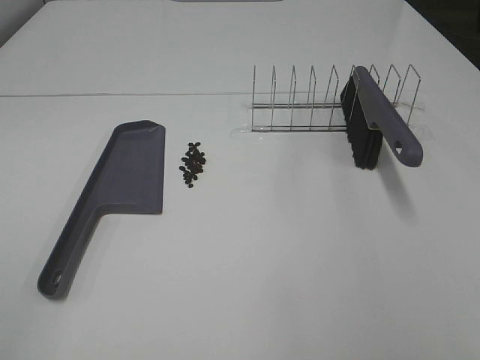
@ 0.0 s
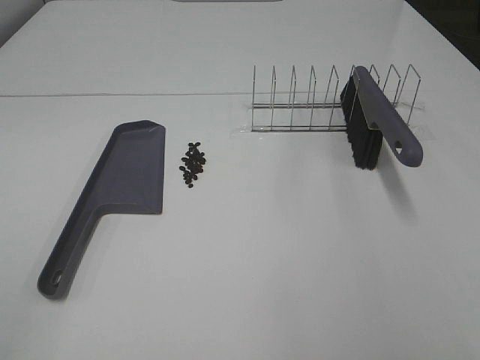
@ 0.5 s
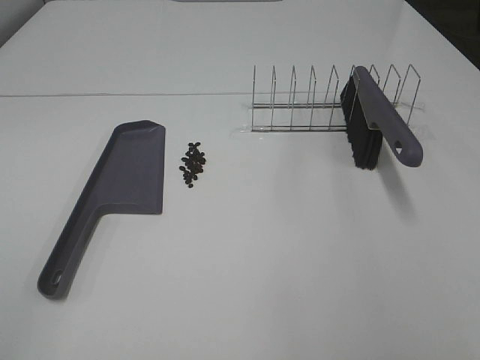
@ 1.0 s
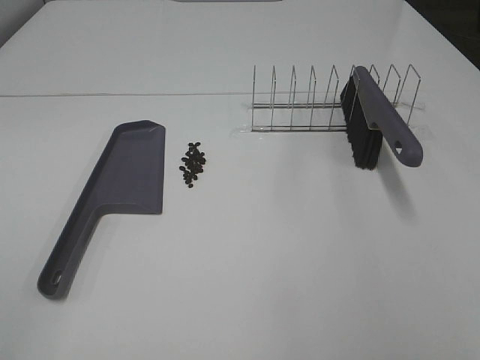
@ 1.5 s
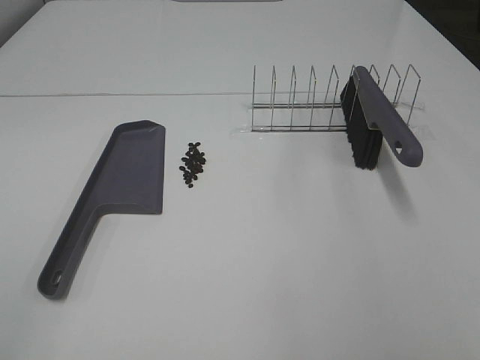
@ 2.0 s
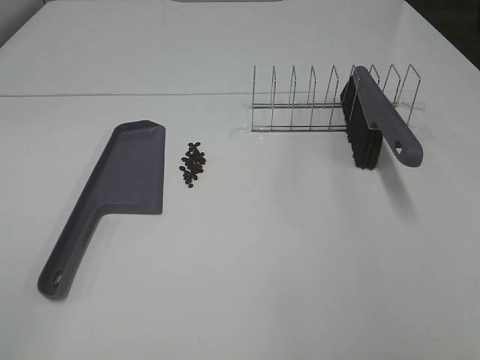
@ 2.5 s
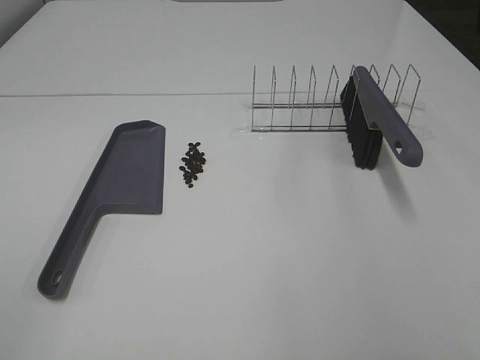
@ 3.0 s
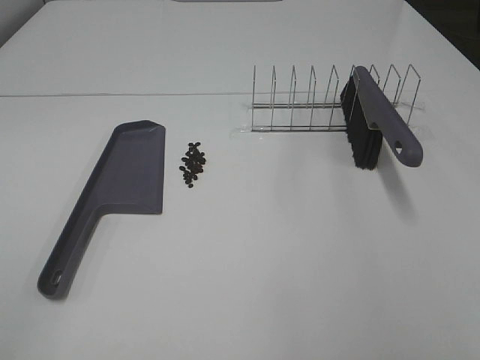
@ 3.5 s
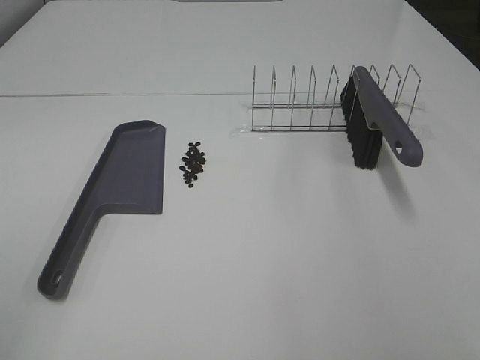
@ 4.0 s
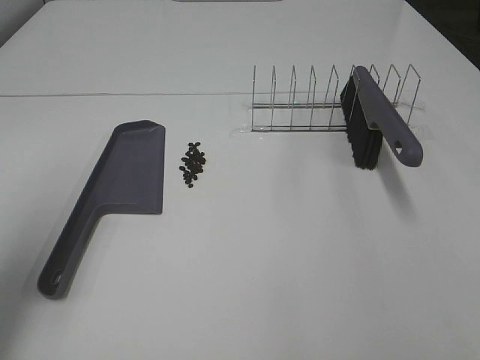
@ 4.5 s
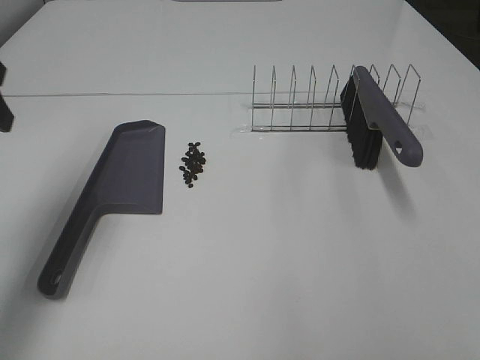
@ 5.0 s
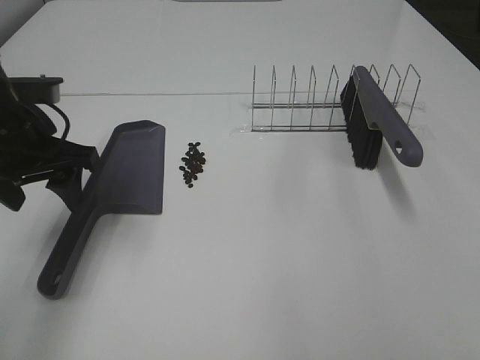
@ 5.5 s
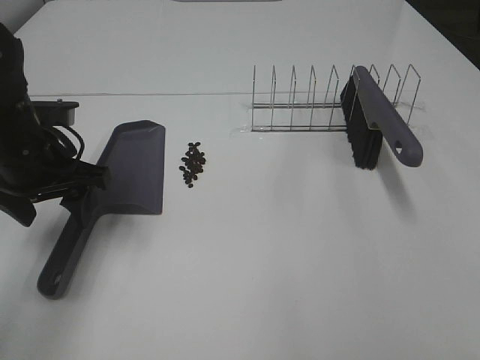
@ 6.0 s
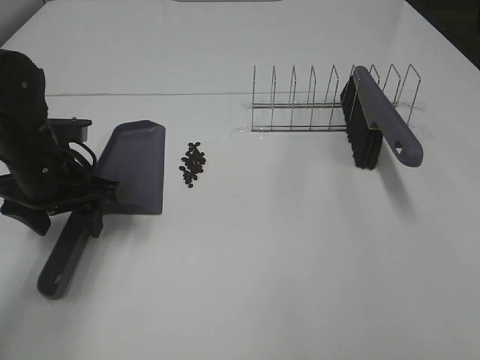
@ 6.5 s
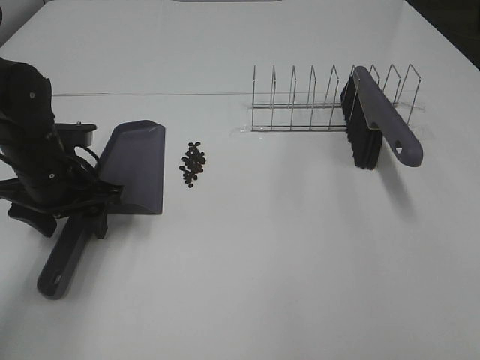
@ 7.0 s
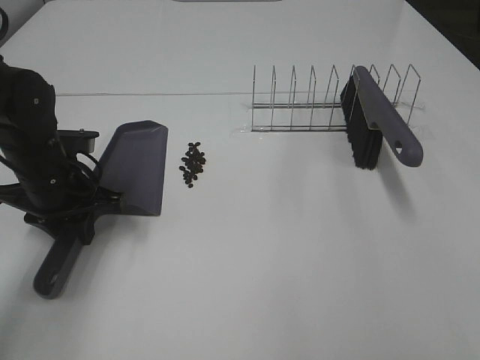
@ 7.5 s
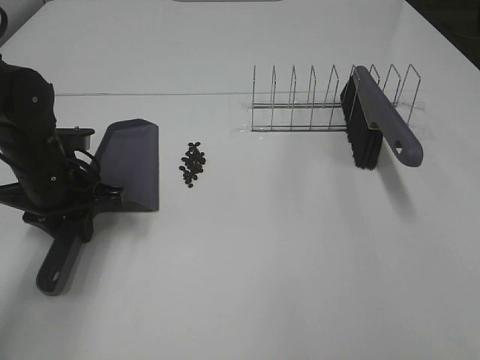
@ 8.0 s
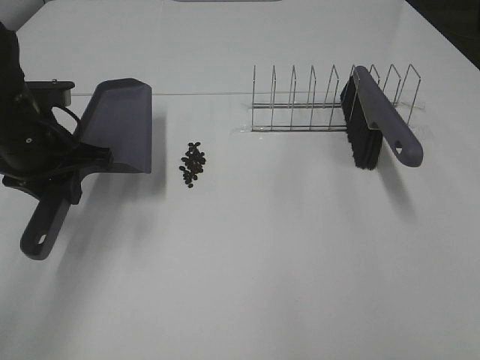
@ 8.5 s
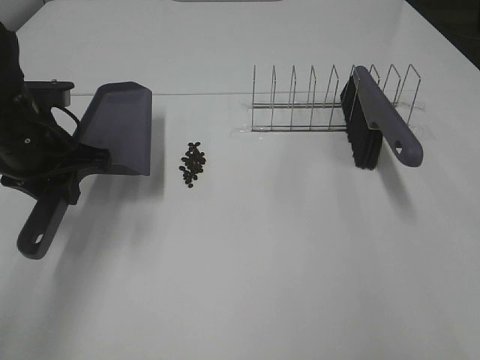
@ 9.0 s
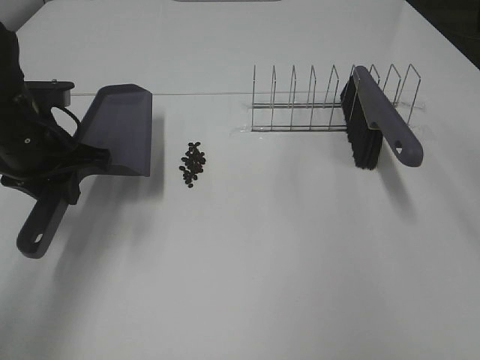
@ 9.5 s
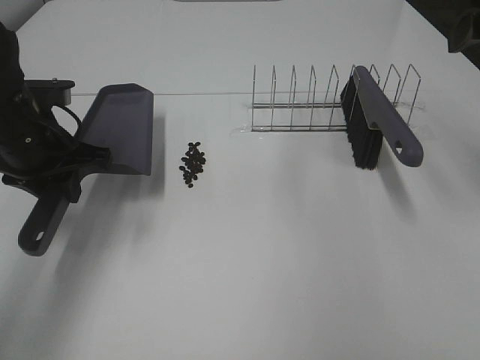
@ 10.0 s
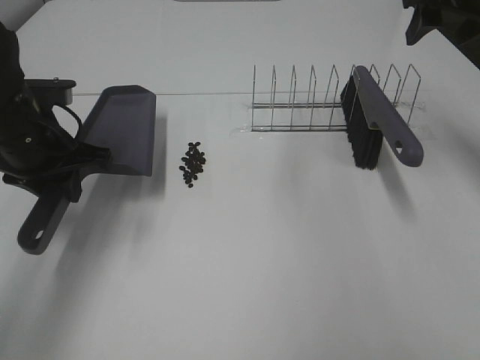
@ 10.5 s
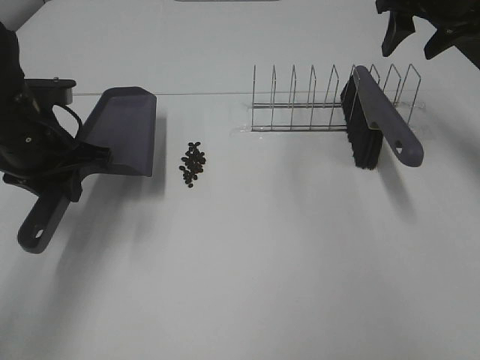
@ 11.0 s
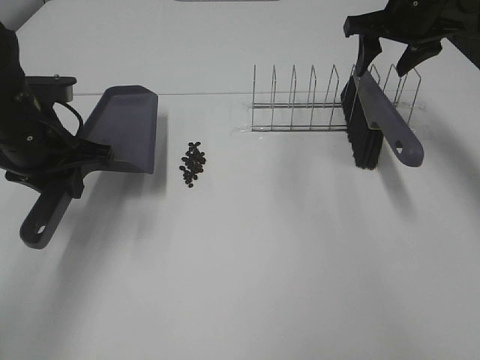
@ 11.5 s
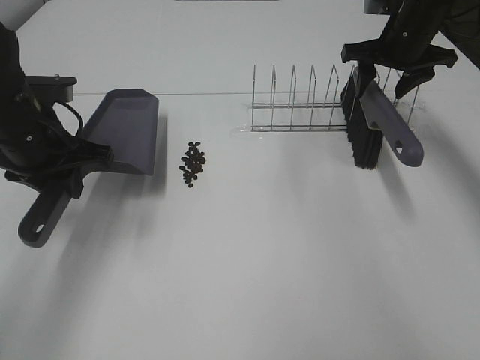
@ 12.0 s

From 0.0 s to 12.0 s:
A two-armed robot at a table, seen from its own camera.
Task of the whole recording: Sweep Coffee Bean.
Step, from 0.0 s to 7.5 s: Left hand: grab the dustpan.
From 0.0 s to 2.0 s: The two grippers keep their place.
From 4.0 s to 6.0 s: The left gripper is displaced forward and downward by about 30 cm.
From 6.0 s to 8.0 s: The left gripper closes.
From 8.0 s to 10.0 s: The right gripper travels forward by some 35 cm. Meanwhile the left gripper moves upward, some 5 cm.
From 10.0 s to 12.0 s: The right gripper heads forward and downward, covering approximately 20 cm.

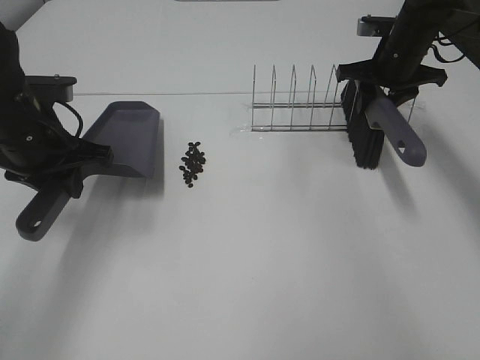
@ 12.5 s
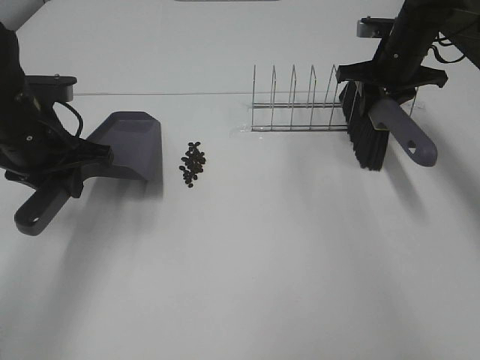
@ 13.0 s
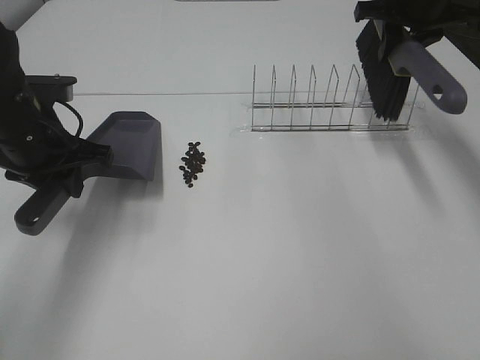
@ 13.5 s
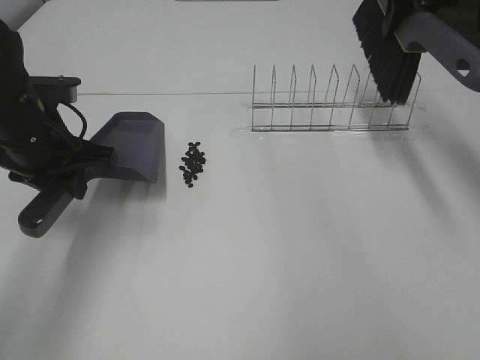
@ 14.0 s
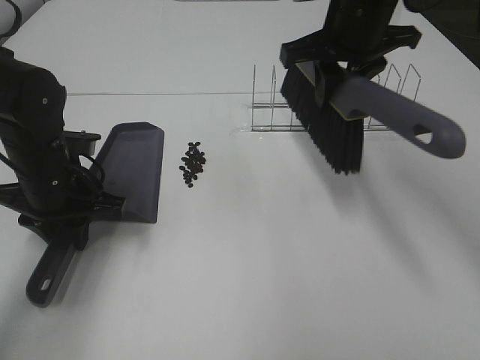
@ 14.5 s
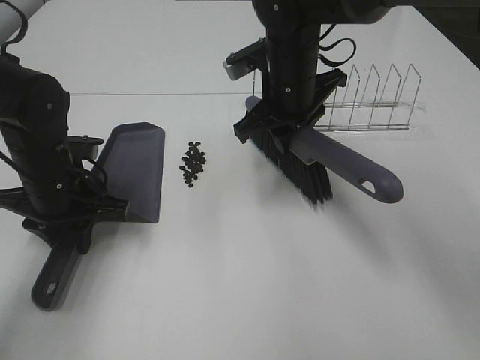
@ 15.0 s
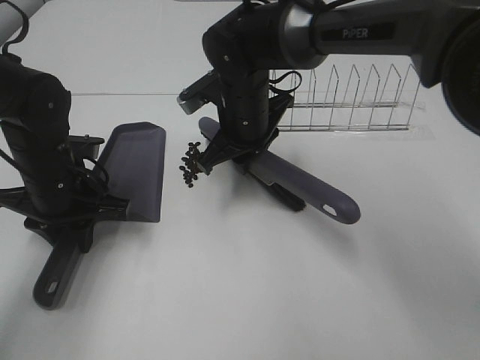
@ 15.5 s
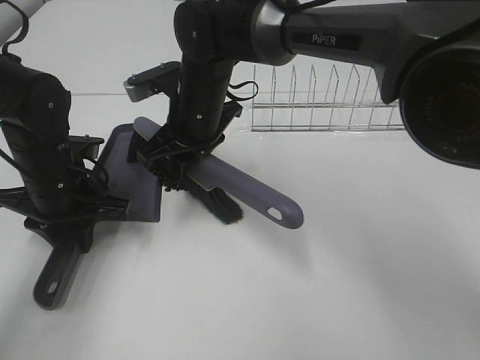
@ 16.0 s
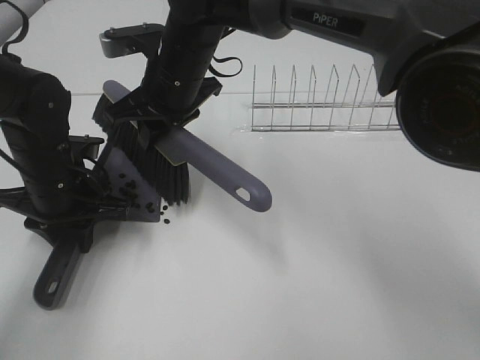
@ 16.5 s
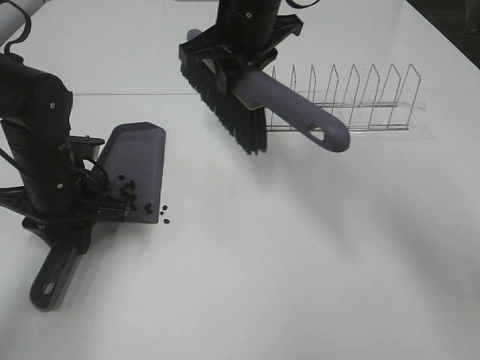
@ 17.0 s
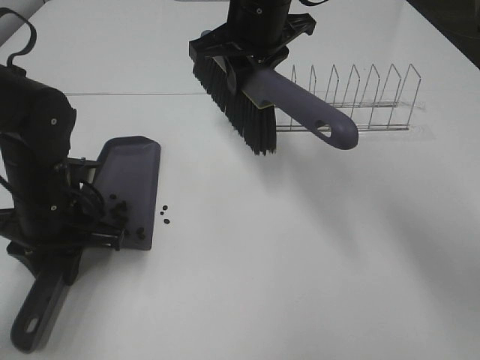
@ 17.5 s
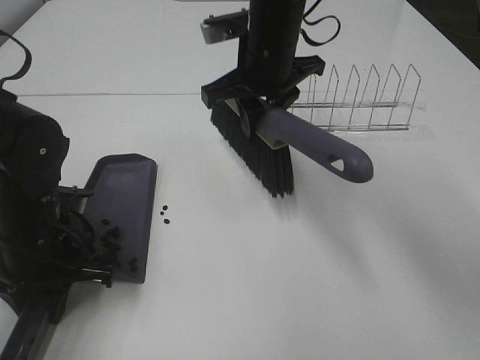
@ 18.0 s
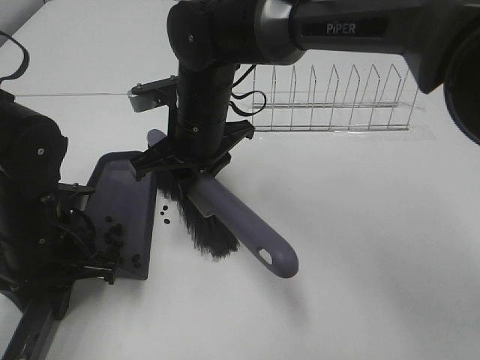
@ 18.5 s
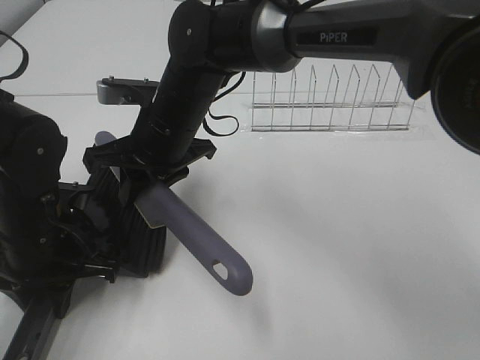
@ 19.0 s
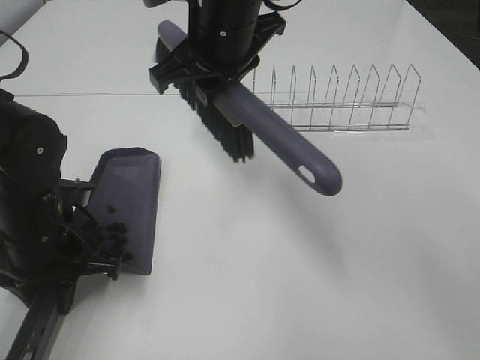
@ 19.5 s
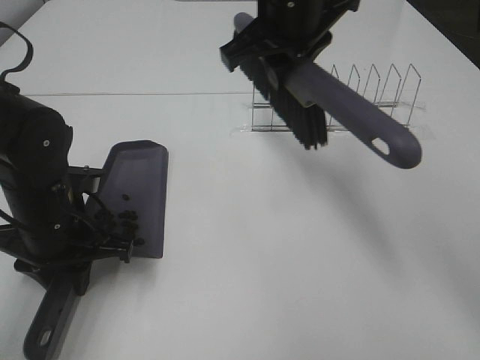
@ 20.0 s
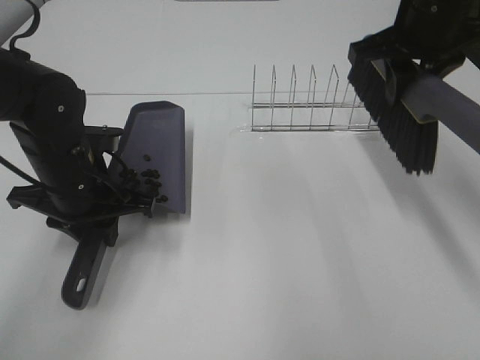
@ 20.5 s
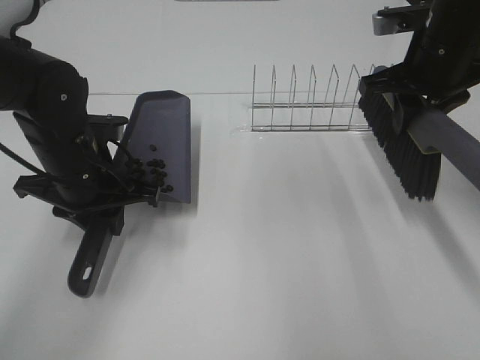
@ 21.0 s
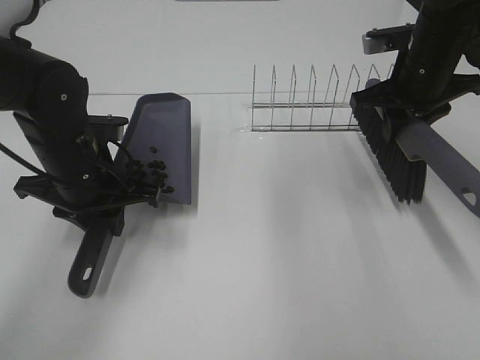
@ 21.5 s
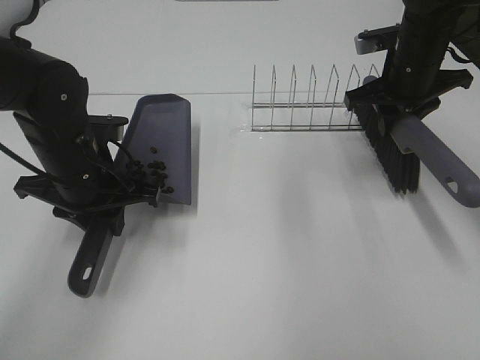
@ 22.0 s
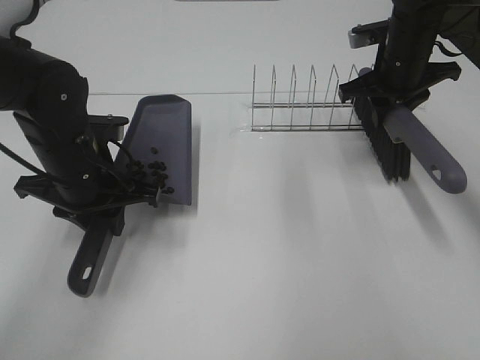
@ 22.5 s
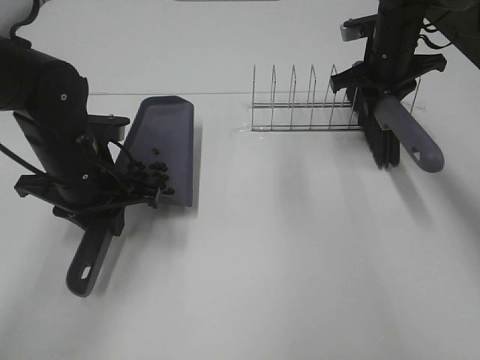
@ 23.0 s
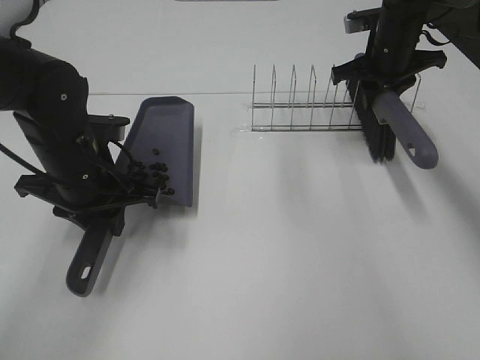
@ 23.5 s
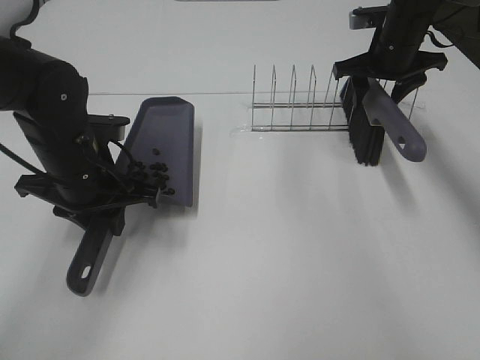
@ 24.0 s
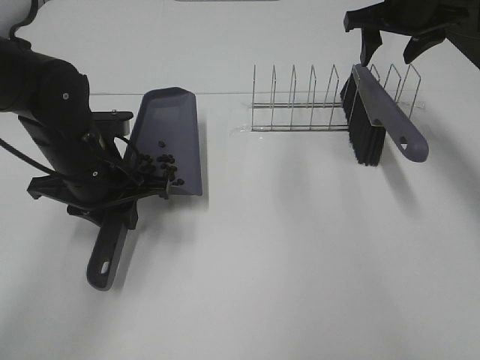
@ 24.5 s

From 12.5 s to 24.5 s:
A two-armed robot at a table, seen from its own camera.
Task of the whole recording: Sweep Coffee Bean.
Step, from 12.5 s to 15.0 s: Left hand: move the dustpan to the left side of the coffee beans.
Step, from 13.0 s to 19.0 s: Right hand:sweep the coffee beans into the dustpan.
Step, from 19.5 s to 24.0 s: Right hand:place the broom on the rack.
From 12.5 s to 14.5 s: The right gripper is displaced to the left, backward and upward by some 20 cm. The left gripper goes approximately 5 cm downward.
From 14.5 s to 16.5 s: The right gripper is displaced to the left by some 20 cm.
From 16.5 s to 18.5 s: The left gripper shifts some 5 cm backward.
From 18.5 s to 20.5 s: The left gripper travels forward by roughly 5 cm, while the right gripper goes about 25 cm to the right and upward.
From 20.5 s to 22.5 s: The right gripper travels downward and forward by about 10 cm.
From 22.5 s to 24.5 s: The right gripper travels upward by some 5 cm, and opens.

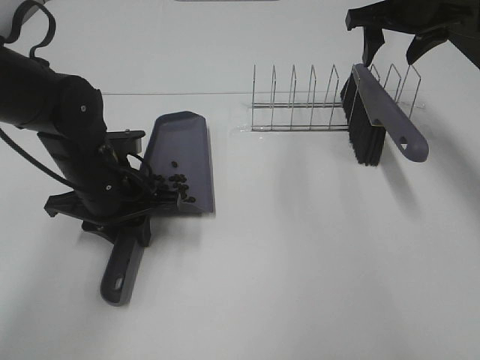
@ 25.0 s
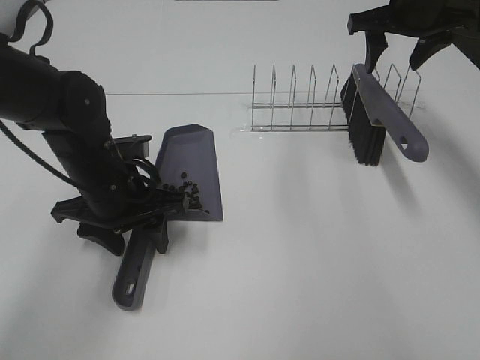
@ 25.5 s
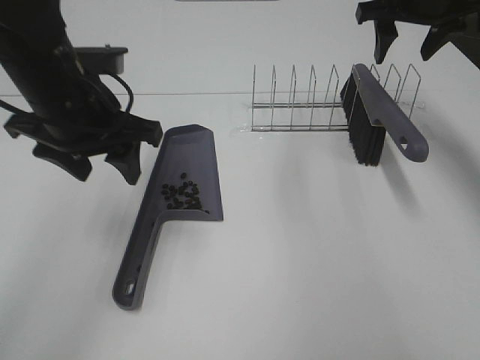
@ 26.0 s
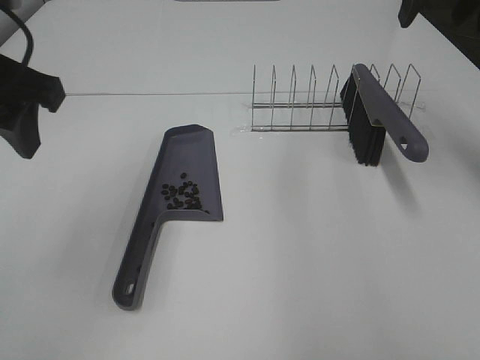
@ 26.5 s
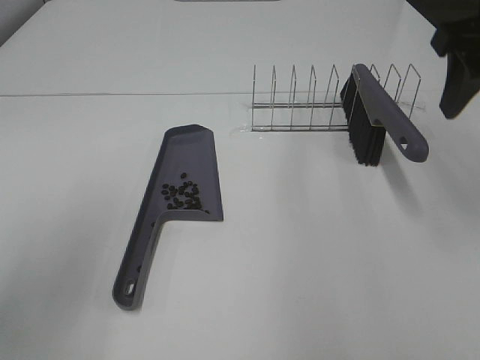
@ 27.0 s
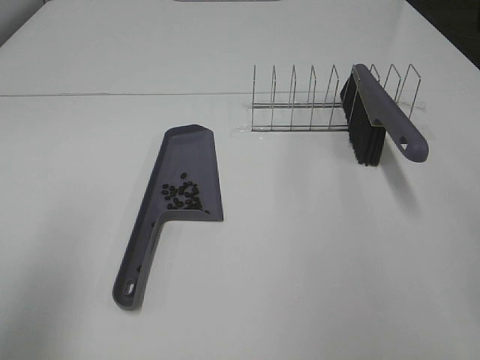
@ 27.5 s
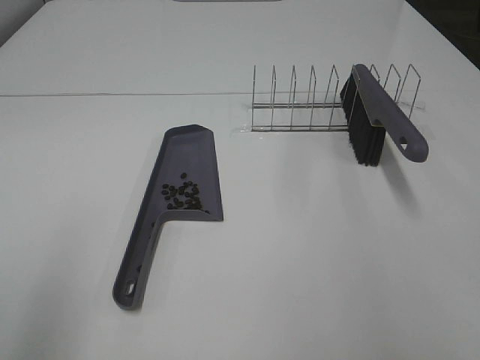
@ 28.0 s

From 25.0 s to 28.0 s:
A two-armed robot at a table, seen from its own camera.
Task of the whole recording: Sweep Coffee Bean.
From 25.0 s to 26.5 s: The right gripper heads backward and upward, covering some 15 cm. Meanwhile the left gripper travels upward by about 20 cm, and opens.
From 26.5 s to 28.0 s: The left gripper goes some 20 cm backward, while the right gripper is displaced backward by some 30 cm.
